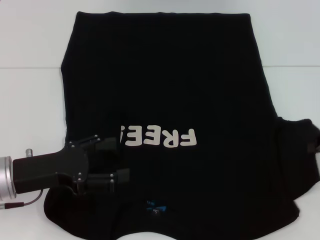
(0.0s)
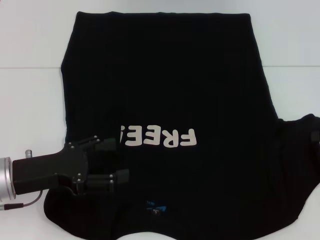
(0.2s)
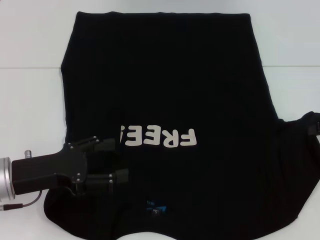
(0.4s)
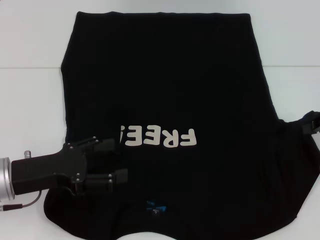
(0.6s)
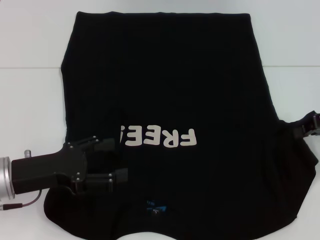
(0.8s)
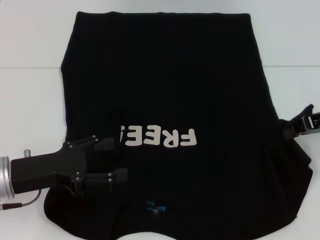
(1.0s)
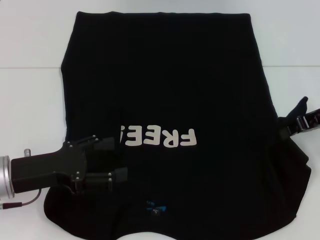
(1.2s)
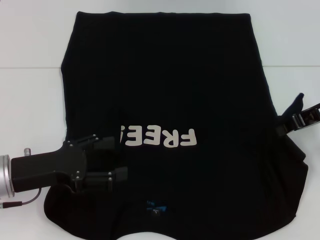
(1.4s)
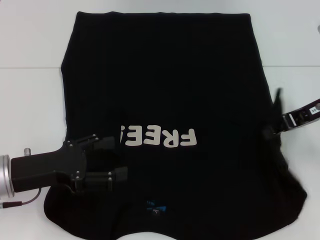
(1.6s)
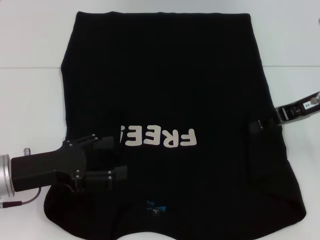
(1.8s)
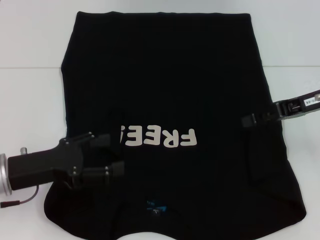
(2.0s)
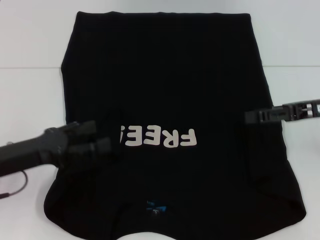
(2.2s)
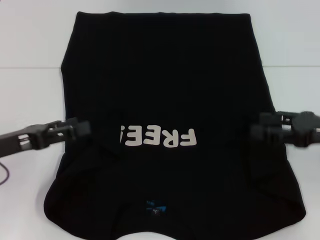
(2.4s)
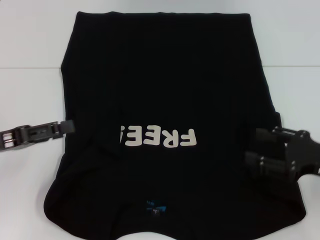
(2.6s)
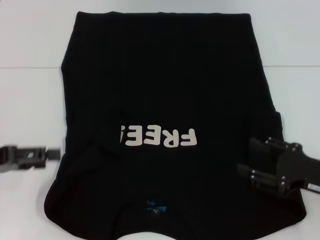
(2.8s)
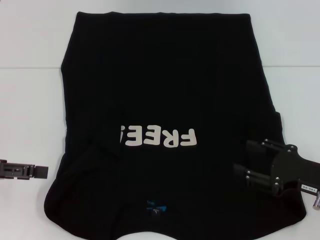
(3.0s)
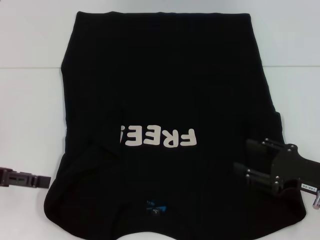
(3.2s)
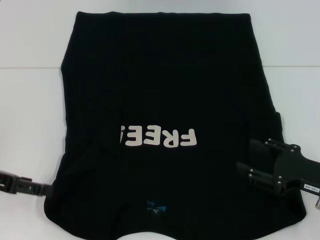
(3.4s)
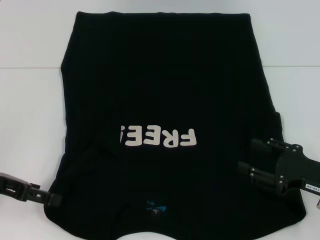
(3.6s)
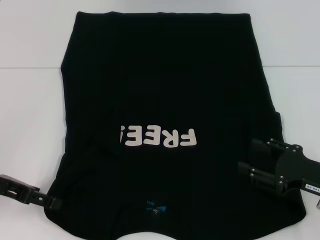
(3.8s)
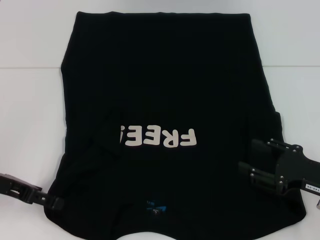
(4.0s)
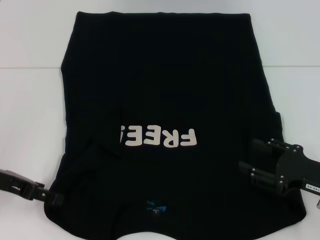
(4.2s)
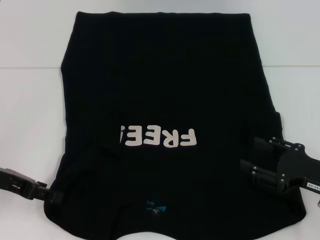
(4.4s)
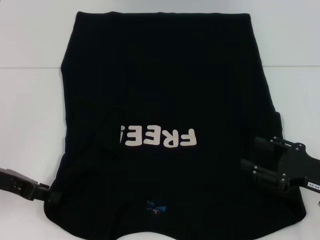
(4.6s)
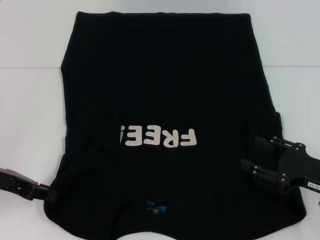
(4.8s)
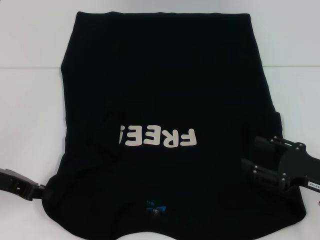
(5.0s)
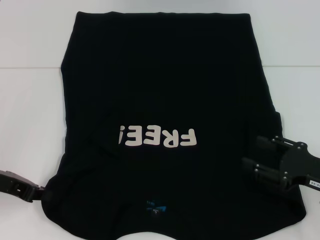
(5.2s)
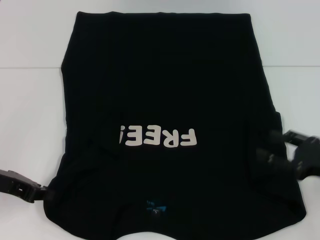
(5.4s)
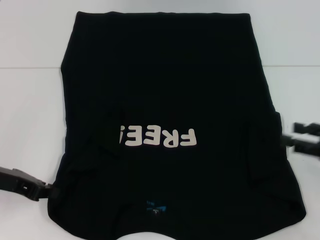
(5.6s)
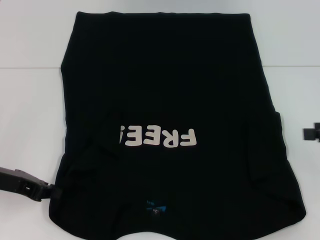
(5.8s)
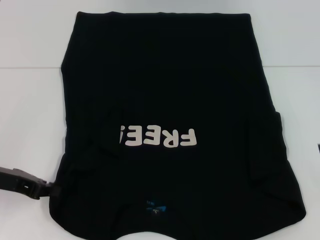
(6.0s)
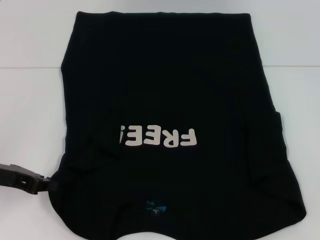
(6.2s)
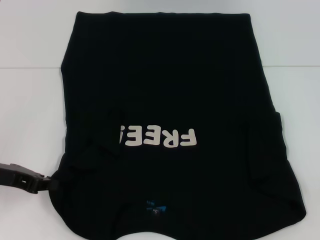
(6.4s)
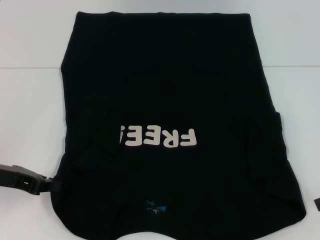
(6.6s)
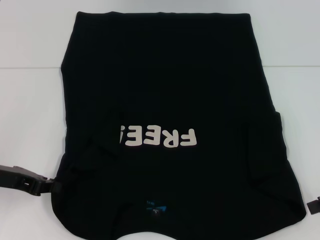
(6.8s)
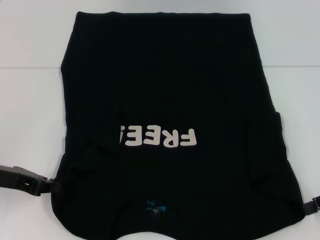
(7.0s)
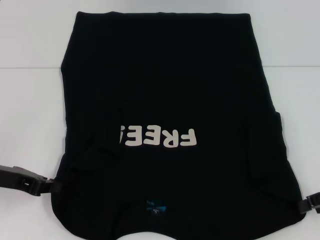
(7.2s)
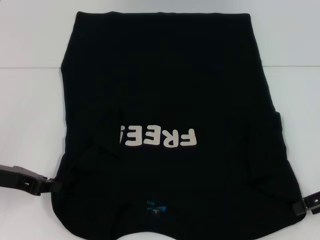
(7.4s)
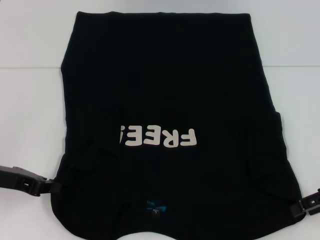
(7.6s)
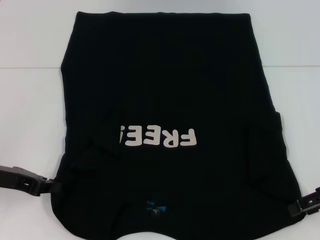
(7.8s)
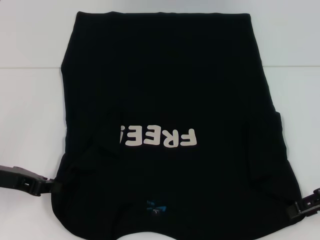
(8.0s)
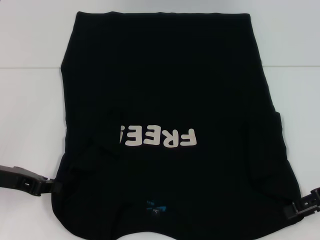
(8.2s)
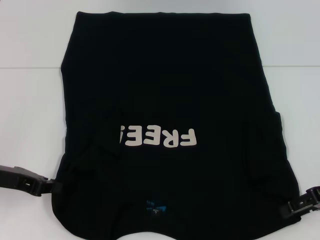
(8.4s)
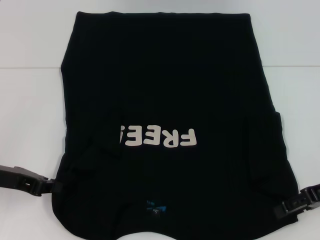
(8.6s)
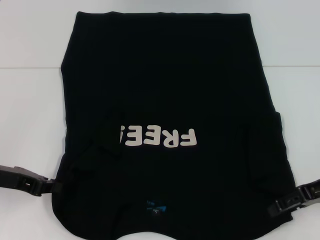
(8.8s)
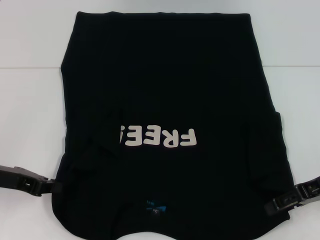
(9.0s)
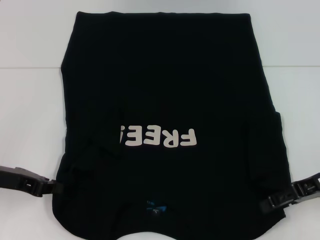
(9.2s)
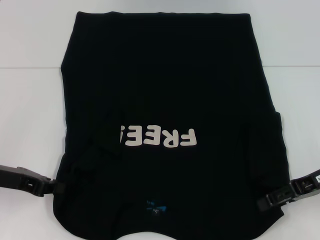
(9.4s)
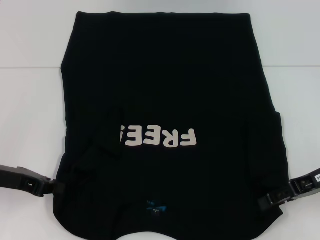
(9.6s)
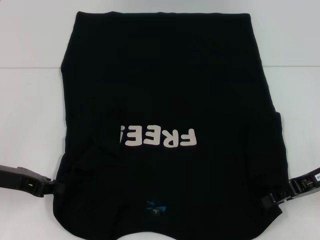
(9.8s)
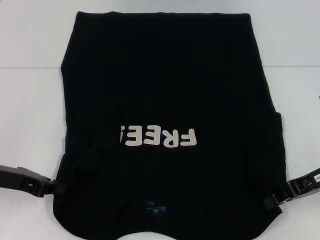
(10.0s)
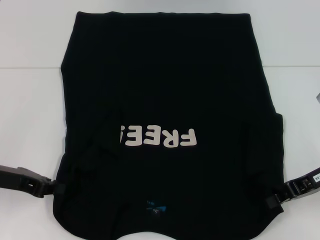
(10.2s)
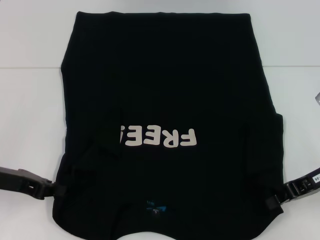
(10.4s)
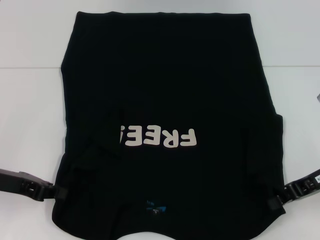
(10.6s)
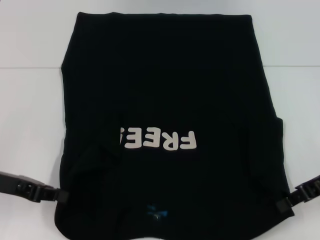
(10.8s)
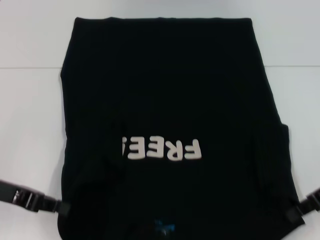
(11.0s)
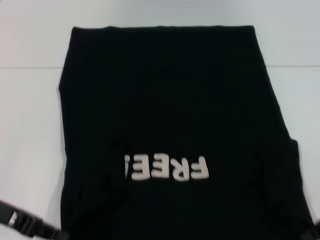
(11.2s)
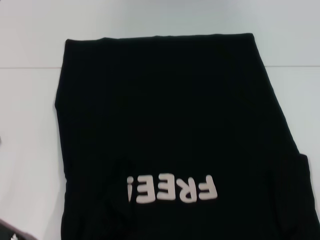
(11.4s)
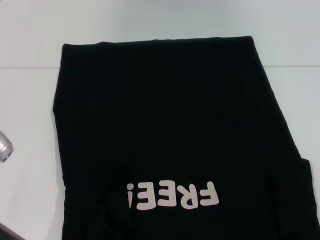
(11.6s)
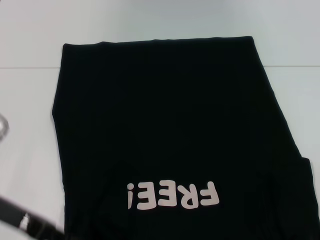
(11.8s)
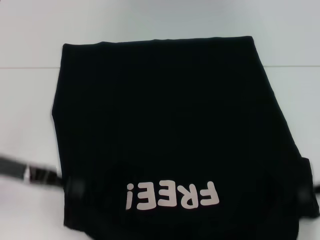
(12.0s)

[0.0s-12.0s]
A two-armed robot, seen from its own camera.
Step, 0.0s to 2.6s: Fold the bottom right sleeve with your right hand.
Step, 2.8s to 9.4s: Grab the bottom left corner with your left hand.
Step, 2.8s to 9.4s: Grab the bottom right corner with your right hand.
0.0s to 1.6s: The right gripper is displaced to the left and upward by about 10 cm.
1.6s to 3.0s: The right gripper travels downward and backward by roughly 20 cm, and opens. Meanwhile the left gripper moves to the left and upward, roughly 10 cm.
3.0s to 4.4s: The left gripper travels to the right by roughly 5 cm.
4.4s to 6.0s: The right gripper travels upward, to the right and forward by some 15 cm; the left gripper closes up.
7.6s to 9.0s: The grippers move only a little.
9.0s to 10.4s: The right gripper closes.
10.4s to 12.0s: The right gripper travels to the right by some 5 cm.

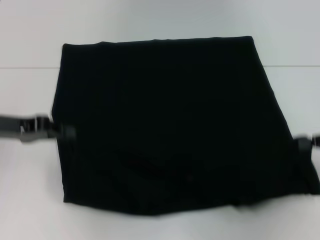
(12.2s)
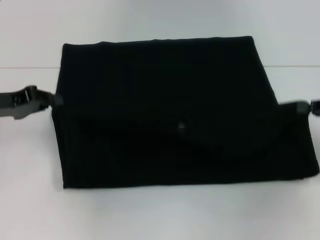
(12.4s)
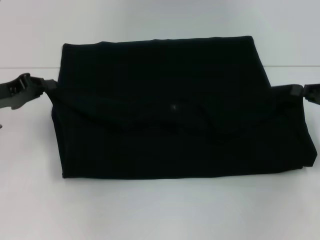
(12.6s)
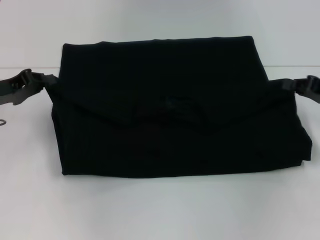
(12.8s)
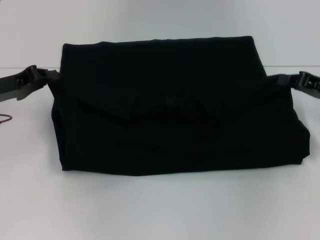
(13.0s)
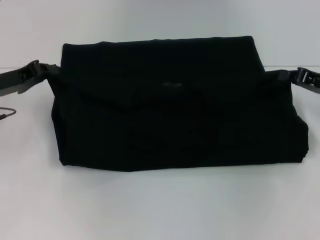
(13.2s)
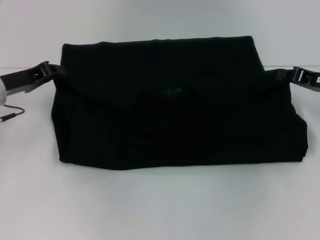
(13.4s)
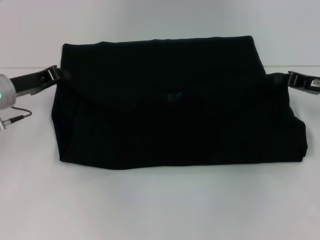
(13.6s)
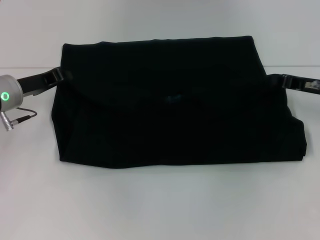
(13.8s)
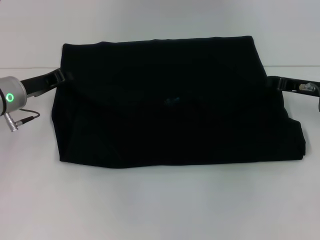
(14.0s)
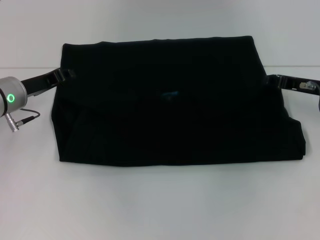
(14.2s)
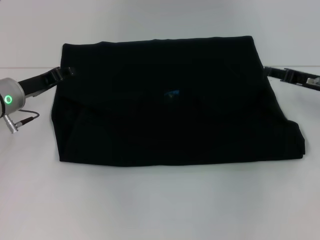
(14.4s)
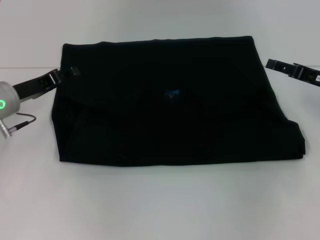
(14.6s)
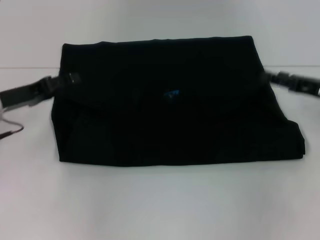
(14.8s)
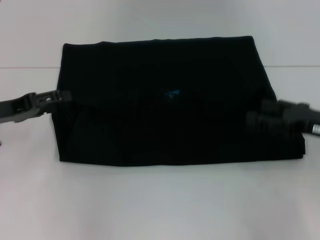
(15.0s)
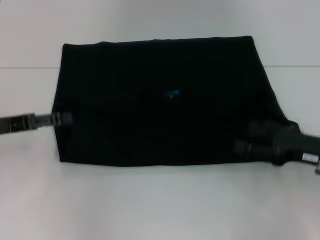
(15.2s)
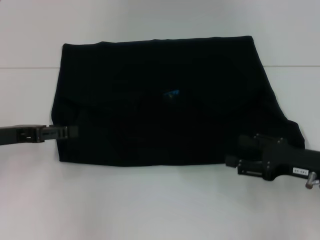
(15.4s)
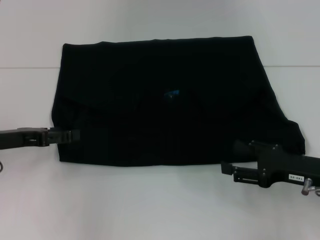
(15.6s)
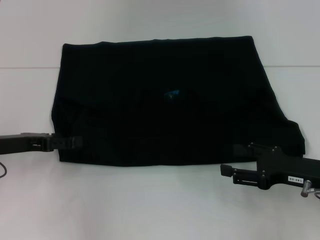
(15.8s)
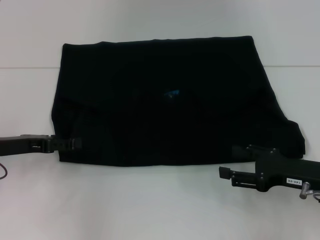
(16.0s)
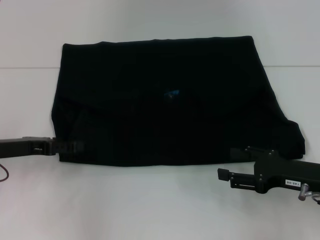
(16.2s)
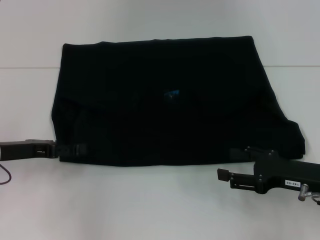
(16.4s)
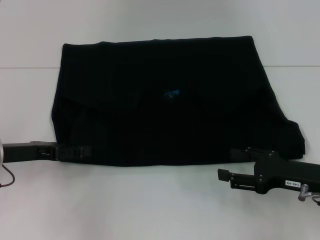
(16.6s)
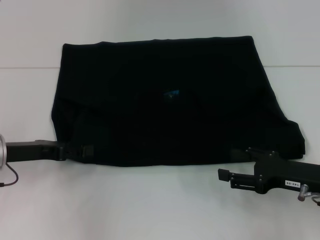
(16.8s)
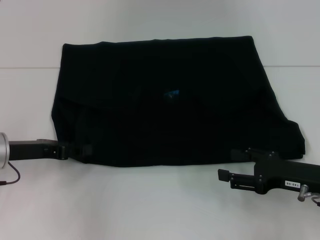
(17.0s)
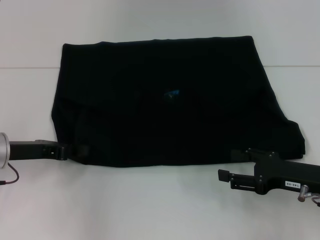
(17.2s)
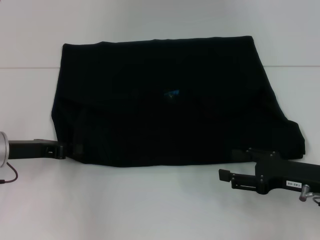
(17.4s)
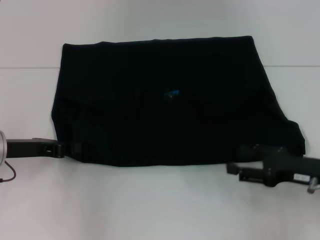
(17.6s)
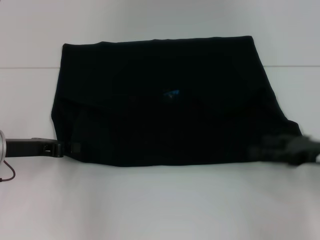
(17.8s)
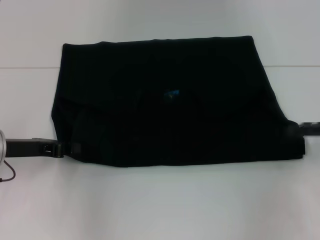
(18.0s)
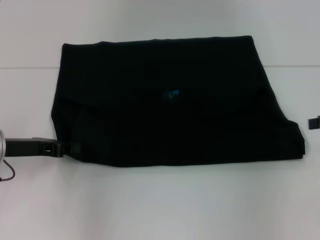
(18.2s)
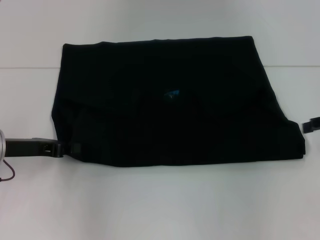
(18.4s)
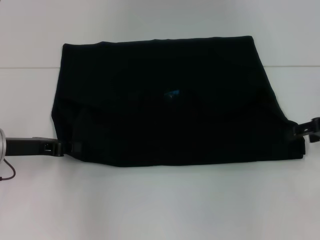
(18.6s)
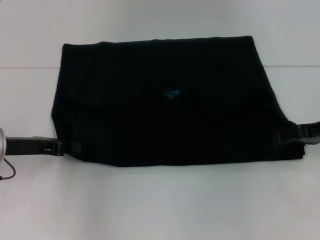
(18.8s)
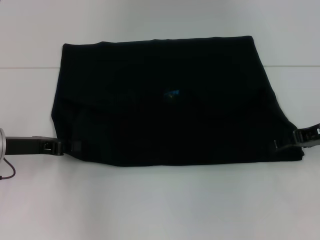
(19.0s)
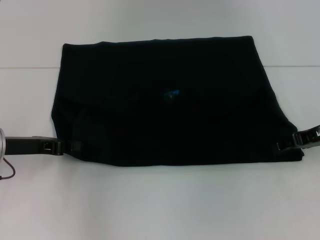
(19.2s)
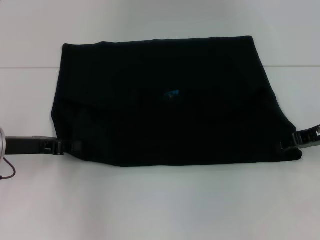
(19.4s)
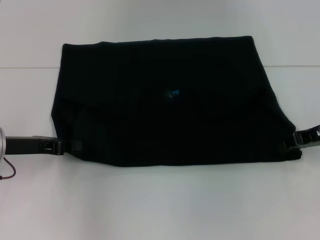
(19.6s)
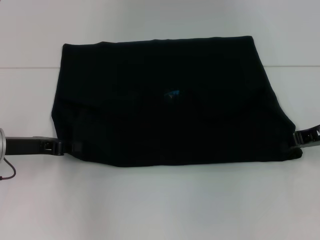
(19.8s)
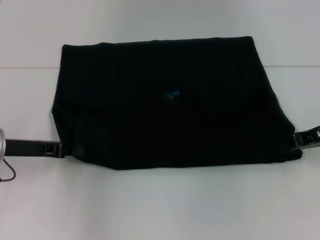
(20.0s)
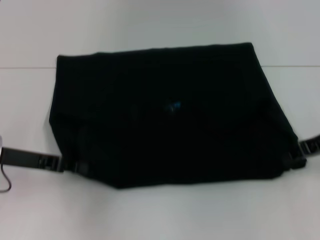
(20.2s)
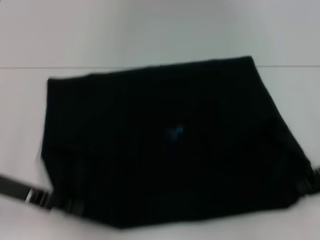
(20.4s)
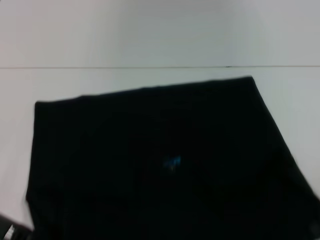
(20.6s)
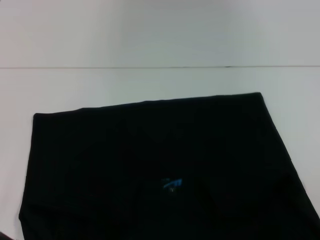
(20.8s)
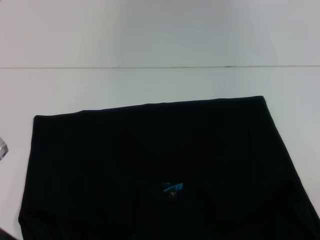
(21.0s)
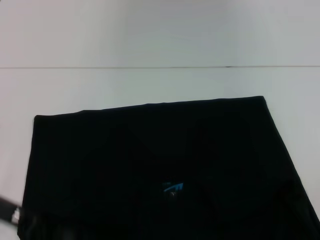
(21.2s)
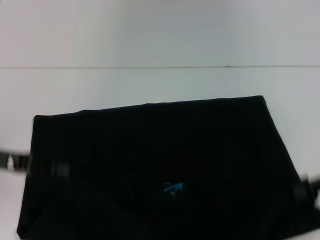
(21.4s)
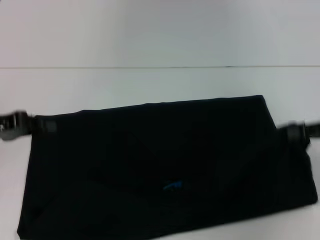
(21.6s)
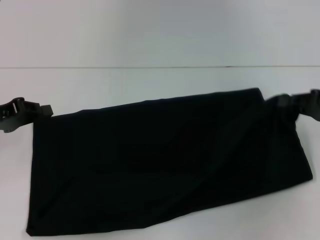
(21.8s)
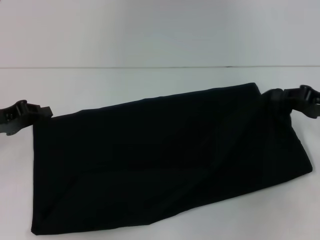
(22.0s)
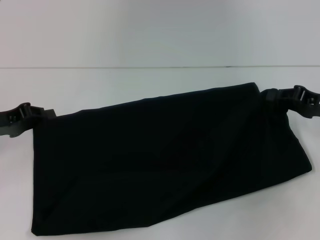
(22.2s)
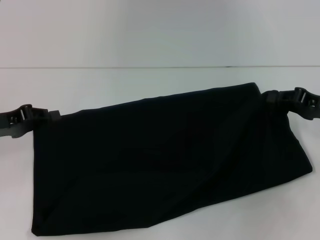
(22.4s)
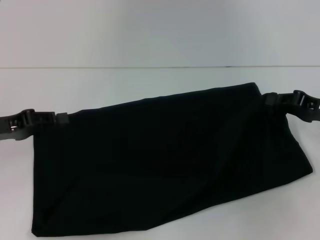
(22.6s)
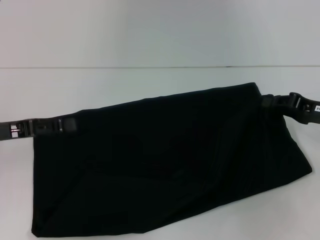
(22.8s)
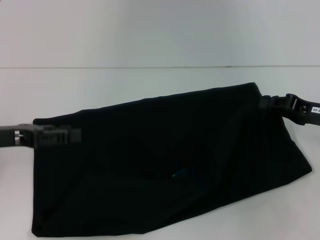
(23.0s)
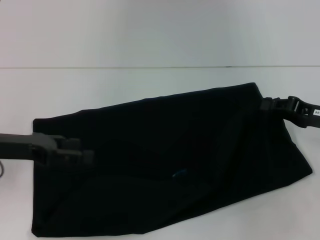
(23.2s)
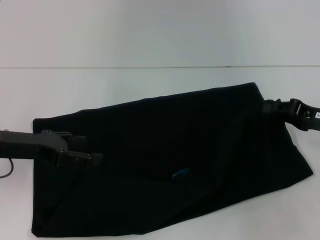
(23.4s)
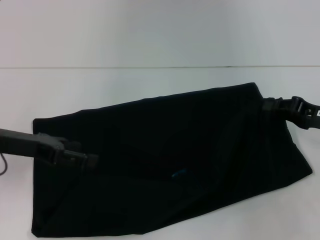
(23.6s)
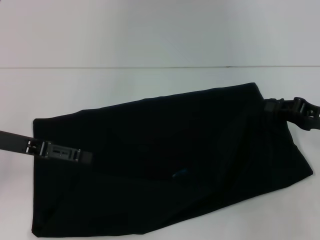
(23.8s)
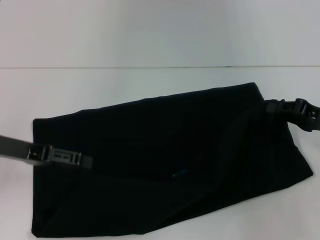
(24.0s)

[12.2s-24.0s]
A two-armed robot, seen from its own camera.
Step, 12.2s to 14.8s: Fold the clothes with your left hand.
Step, 12.2s to 14.8s: Fold the clothes with your right hand.
Step, 15.0s to 20.6s: Pull the clothes with your left hand.
Step, 15.0s to 20.6s: Pull the clothes with your right hand.
12.2s to 13.6s: The left gripper travels forward by some 5 cm. Meanwhile the right gripper moves forward and to the left, about 10 cm.
13.6s to 15.2s: Both grippers travel together backward, approximately 10 cm. The right gripper opens. Meanwhile the left gripper opens up.
15.2s to 16.6s: The left gripper moves about 5 cm.
16.6s to 18.2s: The left gripper closes its fingers, while the right gripper travels to the right, upward and forward by approximately 15 cm.
18.2s to 19.6s: The right gripper travels to the left by about 10 cm, and closes.
19.6s to 21.0s: The grippers both shift backward by about 10 cm. The right gripper closes.
21.0s to 22.6s: The two grippers go some 5 cm forward.
22.6s to 24.0s: The left gripper opens.
